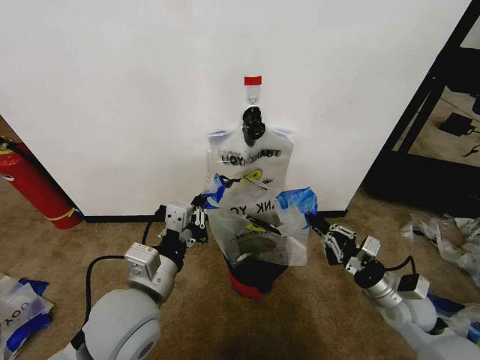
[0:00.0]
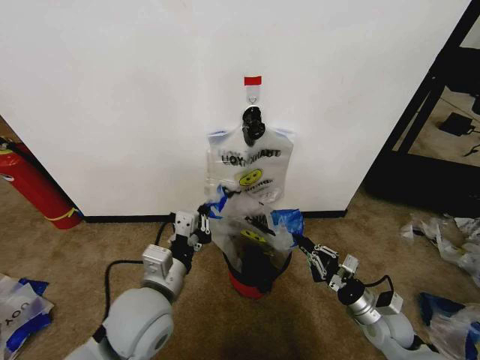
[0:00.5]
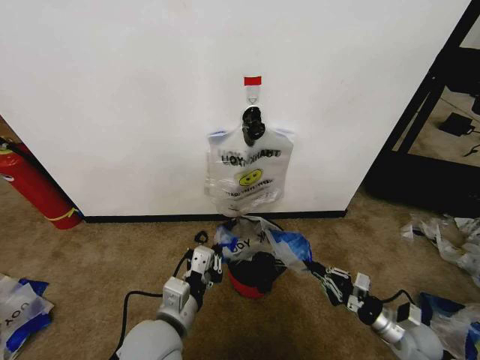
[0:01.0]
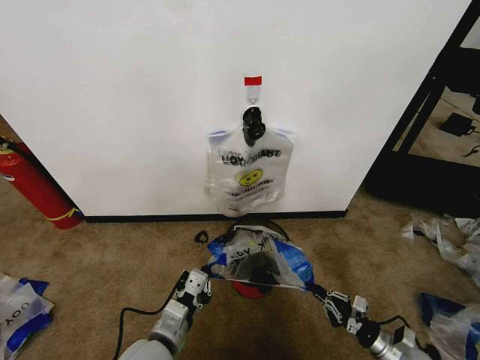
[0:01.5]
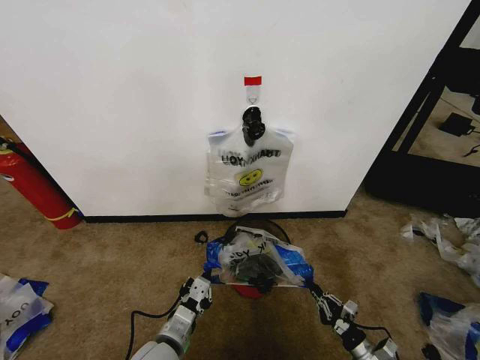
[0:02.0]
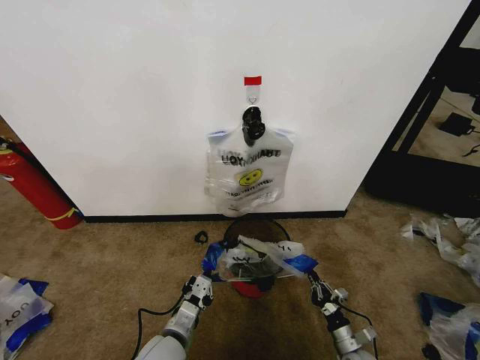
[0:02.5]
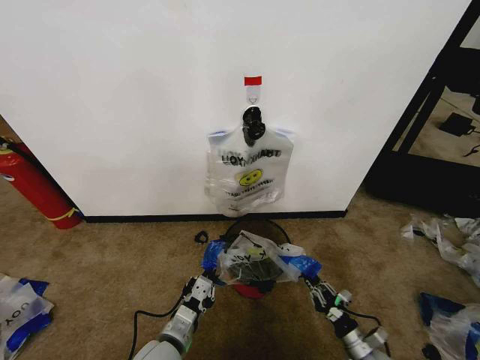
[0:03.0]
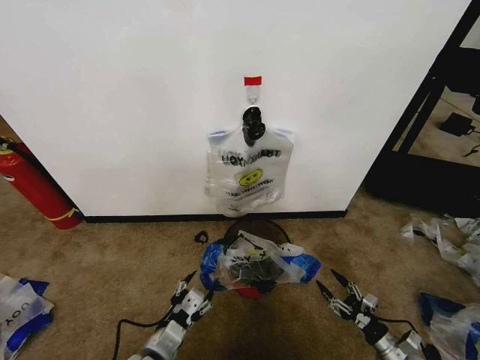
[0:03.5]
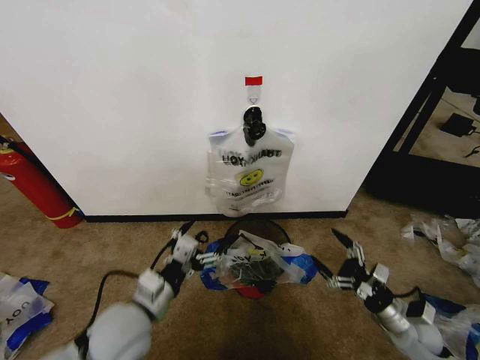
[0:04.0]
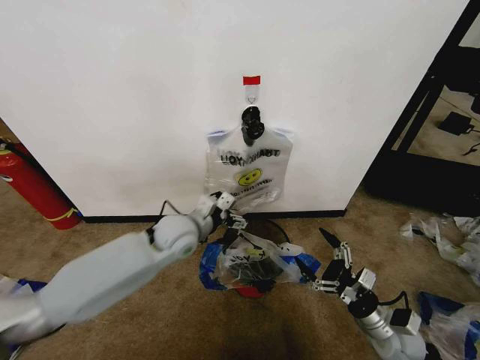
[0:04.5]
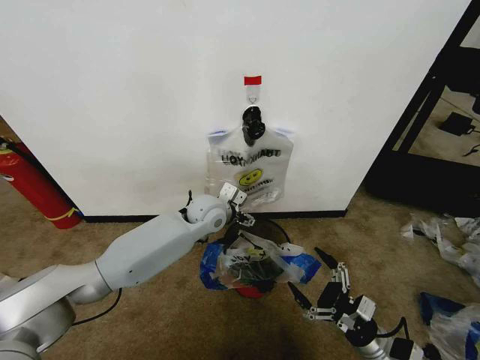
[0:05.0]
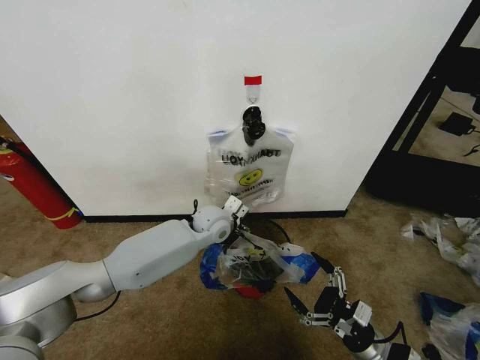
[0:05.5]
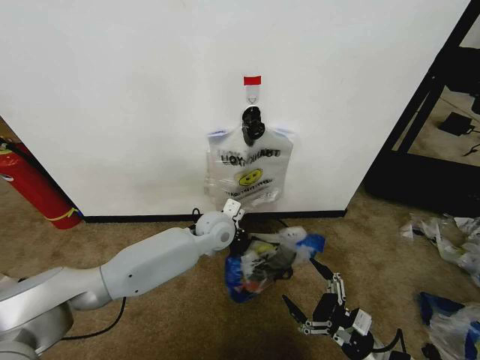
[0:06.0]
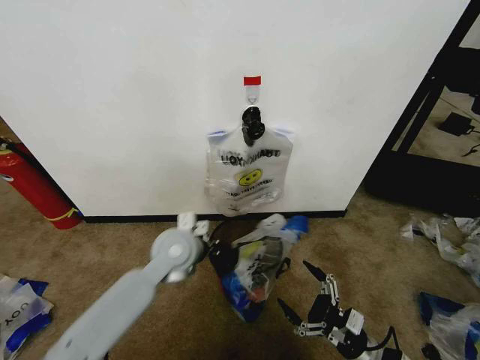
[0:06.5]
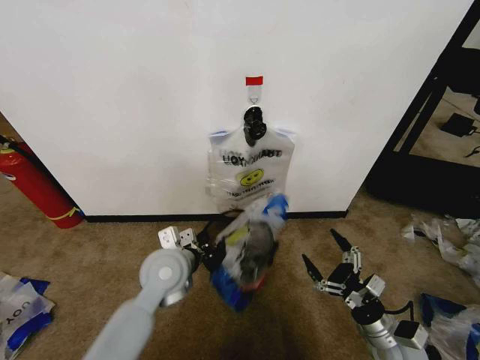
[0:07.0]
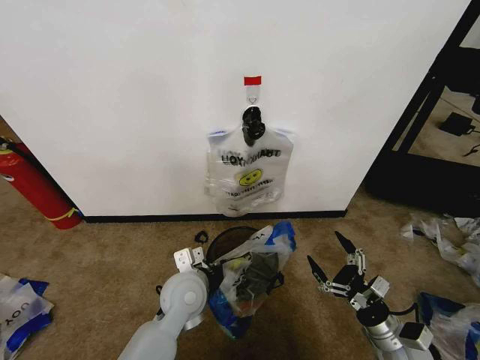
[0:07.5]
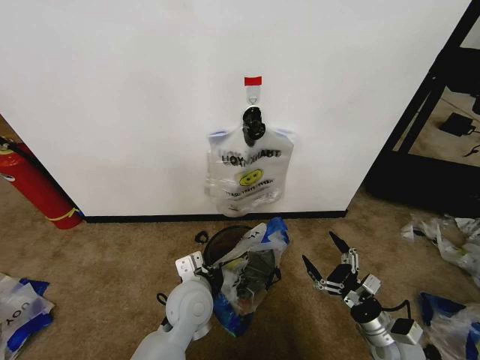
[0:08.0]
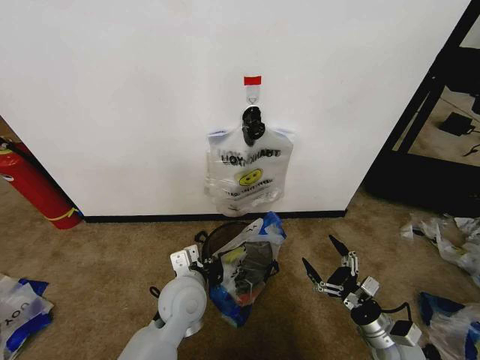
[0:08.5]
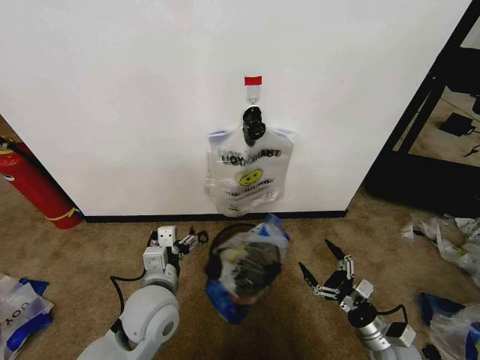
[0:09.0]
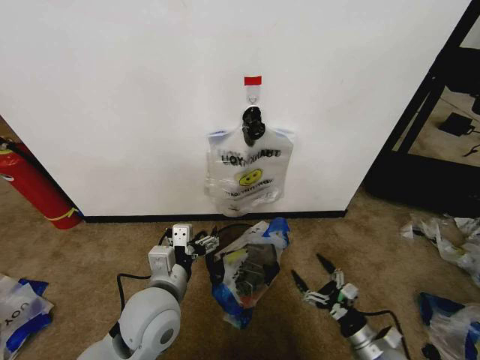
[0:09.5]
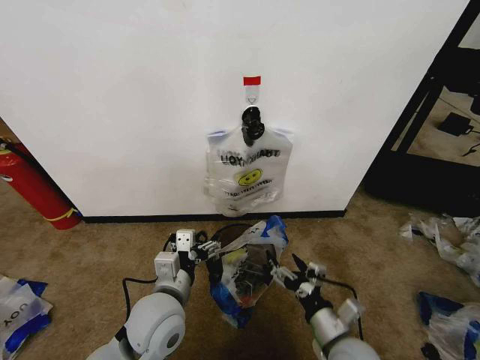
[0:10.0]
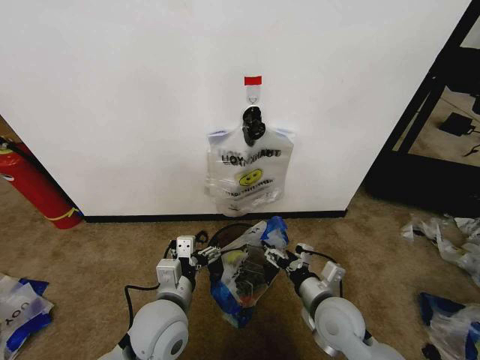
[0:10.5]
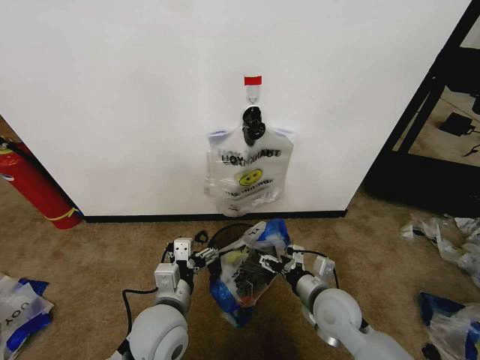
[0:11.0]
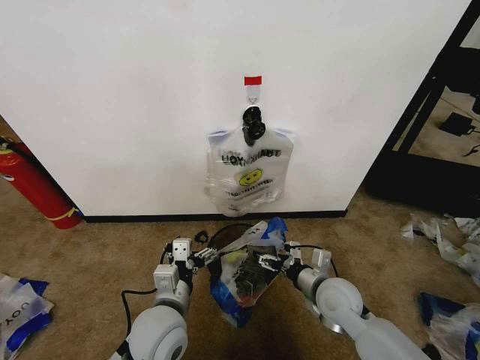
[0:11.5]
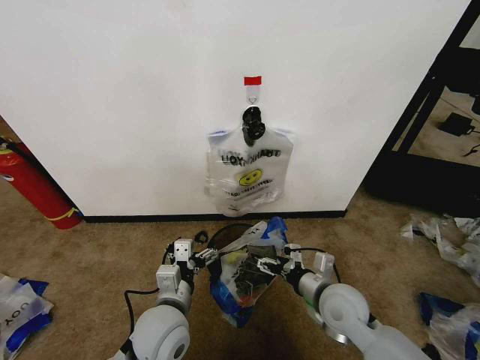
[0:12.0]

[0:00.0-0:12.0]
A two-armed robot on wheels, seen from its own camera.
Task of the whole recording: Pick up the garbage bag from the wall and place it over the trash bin.
0:00.0 to 0:02.0: The right gripper heads downward and backward, covering some 25 cm; the left gripper travels downward by roughly 20 cm.
0:02.0 to 0:04.0: The left gripper travels upward by about 10 cm, and opens its fingers. Meanwhile the right gripper travels upward and forward by about 15 cm, and opens.
0:04.0 to 0:06.0: The right gripper is displaced to the left and backward by approximately 10 cm. The left gripper goes some 25 cm forward and to the right, and closes its fingers.
0:06.0 to 0:08.0: The left gripper travels backward by approximately 15 cm; the right gripper moves roughly 5 cm.
0:08.0 to 0:10.0: The left gripper shifts approximately 5 cm upward, and opens; the right gripper goes approximately 15 cm to the left and upward.
0:10.0 to 0:12.0: The right gripper travels forward by about 10 cm.

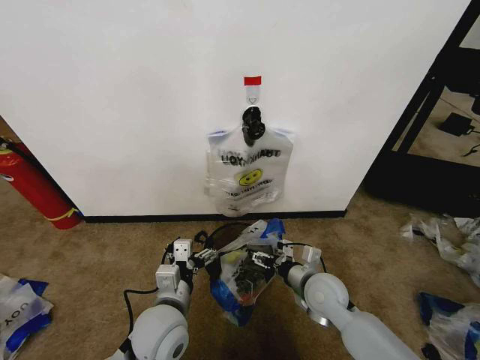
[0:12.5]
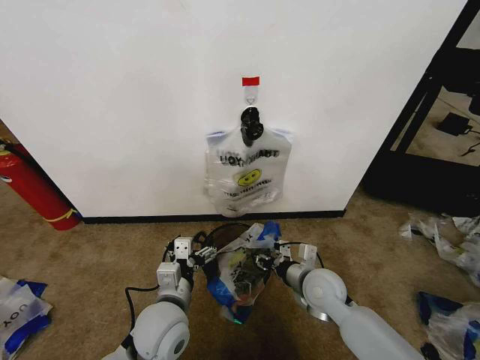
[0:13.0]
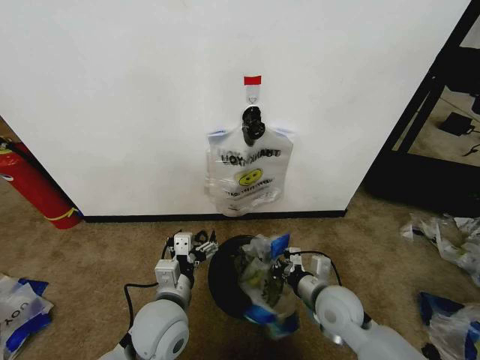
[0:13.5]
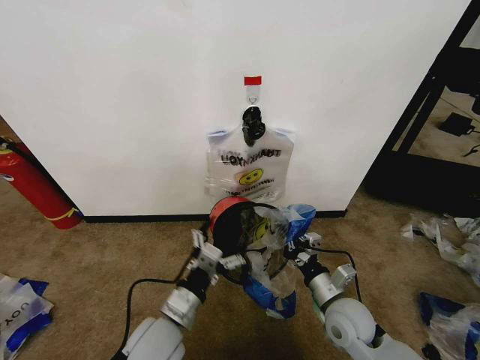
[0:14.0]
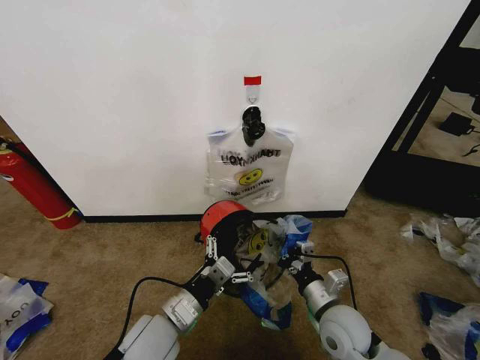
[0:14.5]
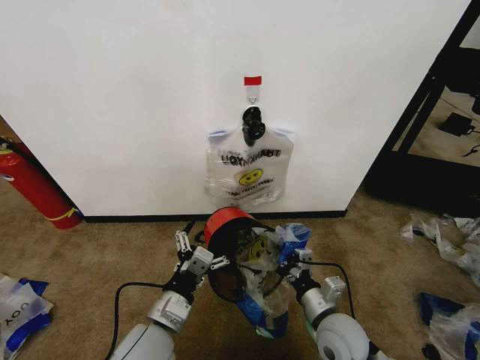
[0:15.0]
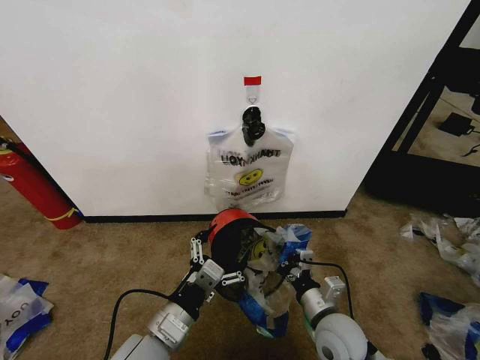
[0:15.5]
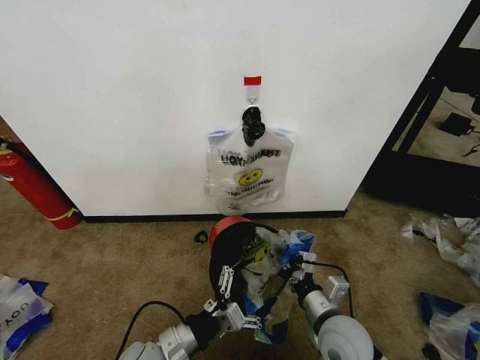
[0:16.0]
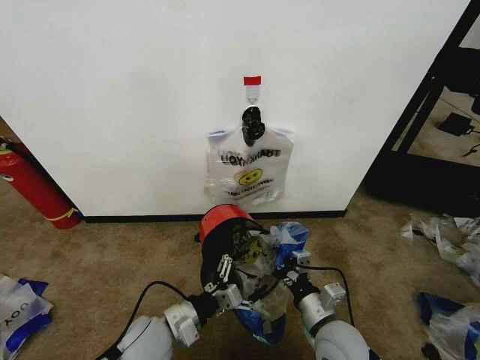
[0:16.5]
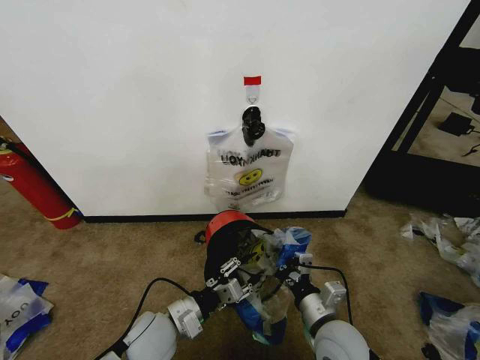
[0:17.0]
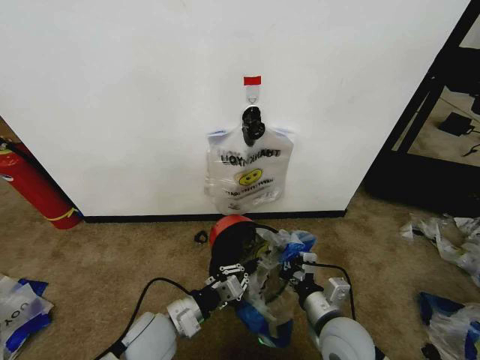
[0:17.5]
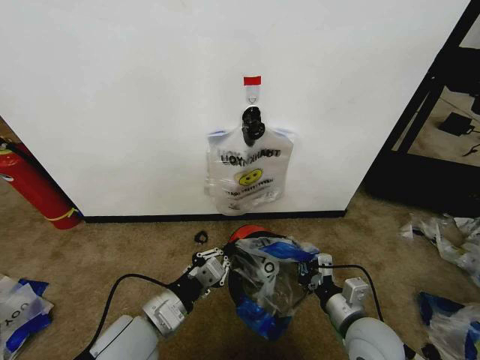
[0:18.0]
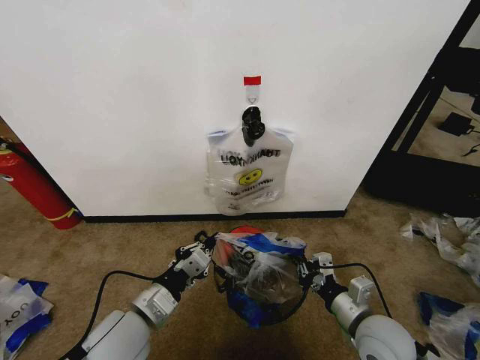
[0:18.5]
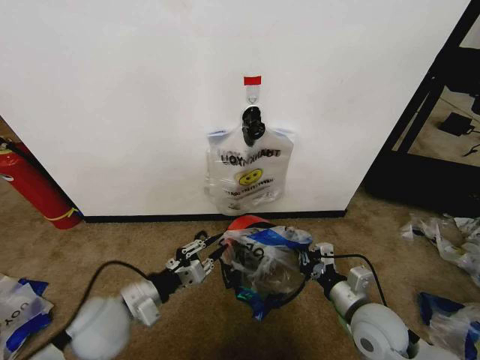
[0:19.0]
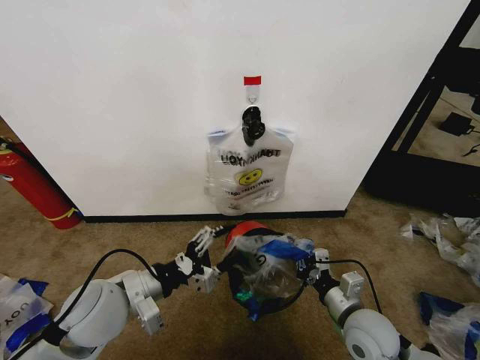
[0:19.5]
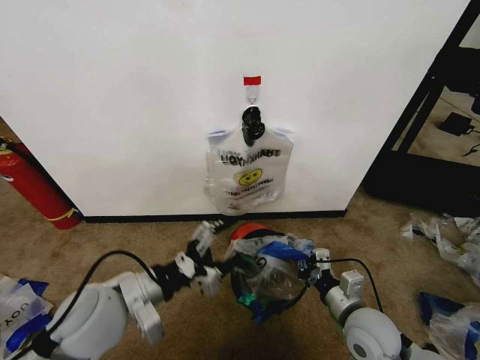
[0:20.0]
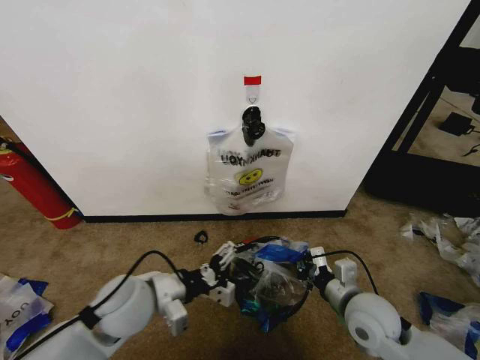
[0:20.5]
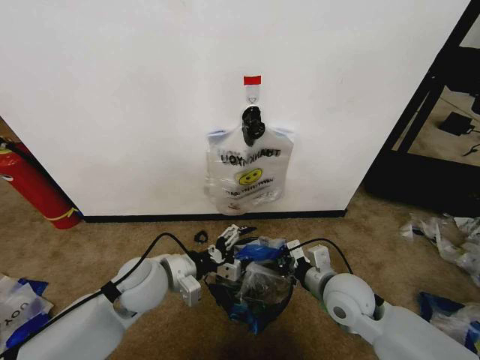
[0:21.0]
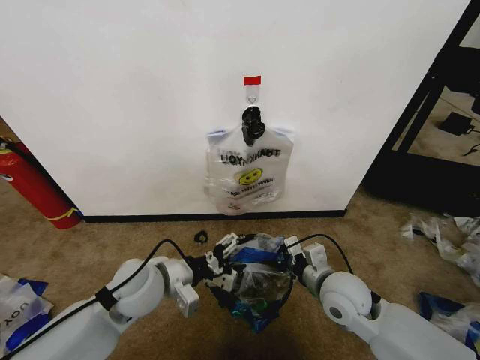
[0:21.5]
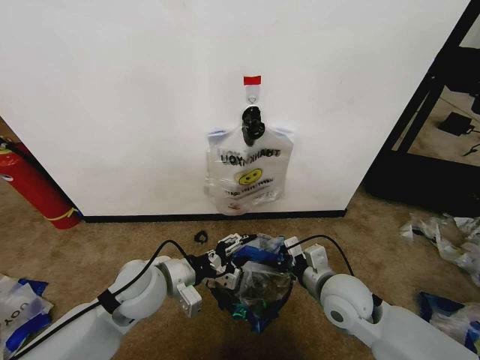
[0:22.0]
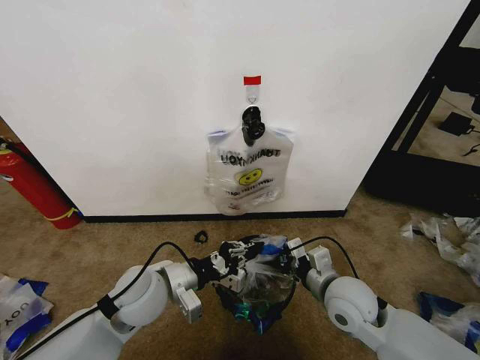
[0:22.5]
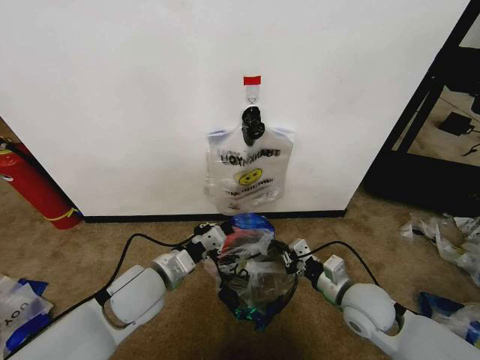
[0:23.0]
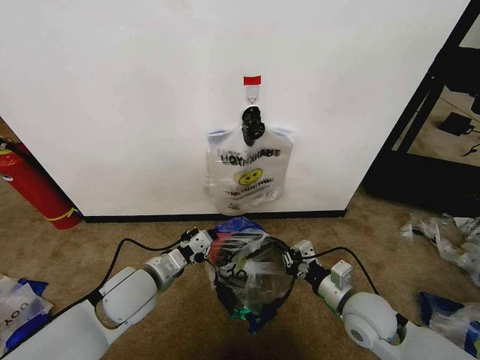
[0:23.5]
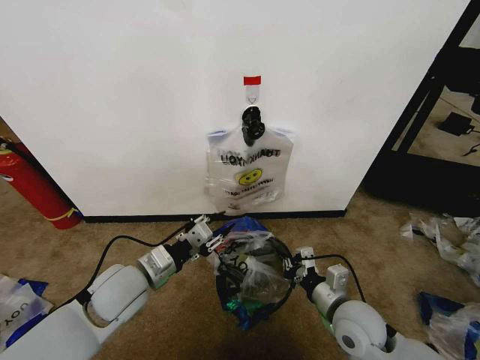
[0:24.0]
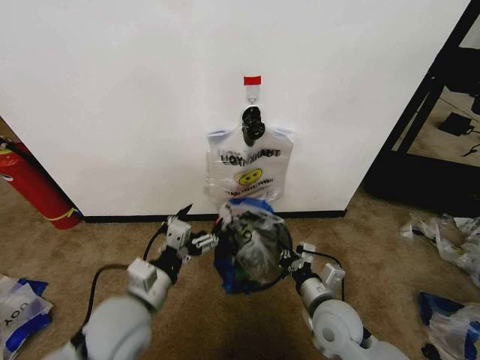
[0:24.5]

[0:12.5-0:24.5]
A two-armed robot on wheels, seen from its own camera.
Task of the whole recording: Pick up the garbage bag from the wall and place it over the trash bin.
0:12.5 to 0:14.5: The right gripper shifts approximately 5 cm backward, and closes up.
0:16.5 to 0:18.5: The right gripper is displaced to the right by roughly 5 cm; the left gripper shifts approximately 5 cm upward, and closes.
0:18.5 to 0:20.5: The left gripper goes some 5 cm forward, and opens its fingers.
0:20.5 to 0:22.5: The right gripper ends up approximately 5 cm from where it was; the left gripper closes.
0:22.5 to 0:24.5: The left gripper opens up. Meanwhile the right gripper ends up some 5 cm from where it was.

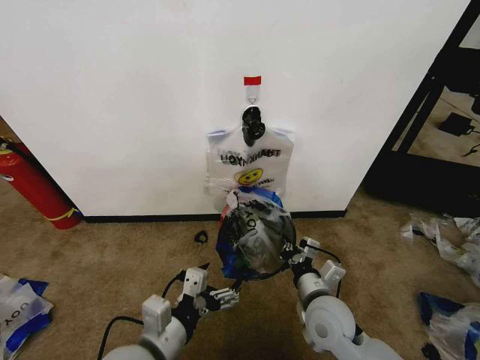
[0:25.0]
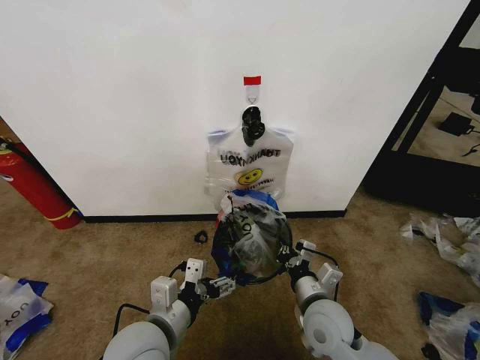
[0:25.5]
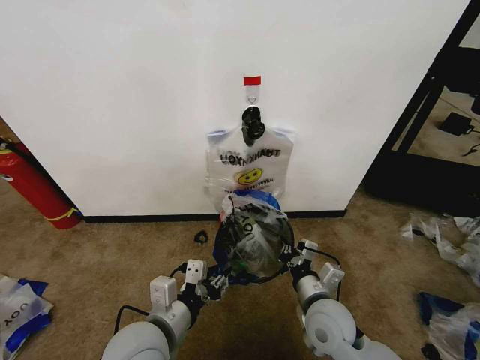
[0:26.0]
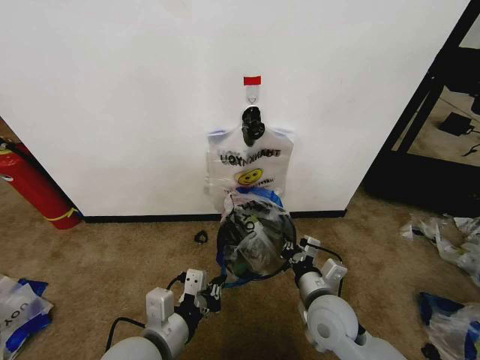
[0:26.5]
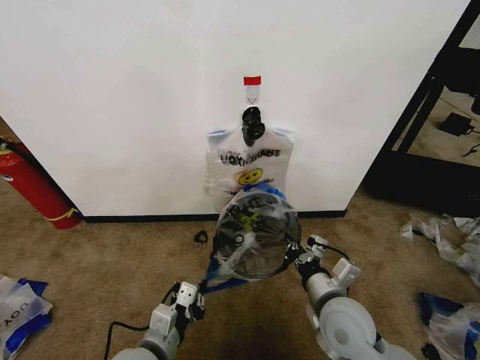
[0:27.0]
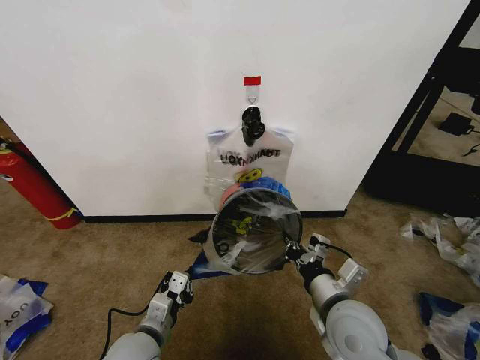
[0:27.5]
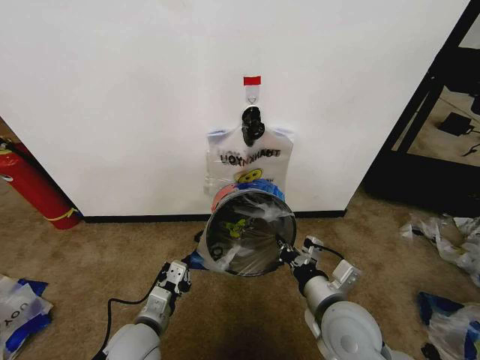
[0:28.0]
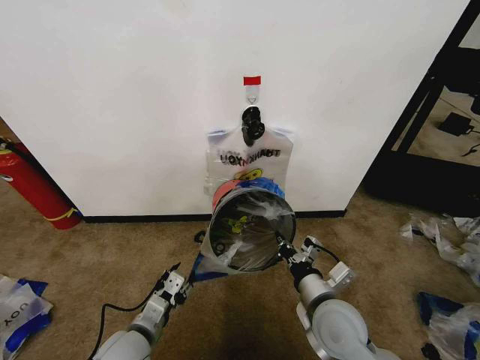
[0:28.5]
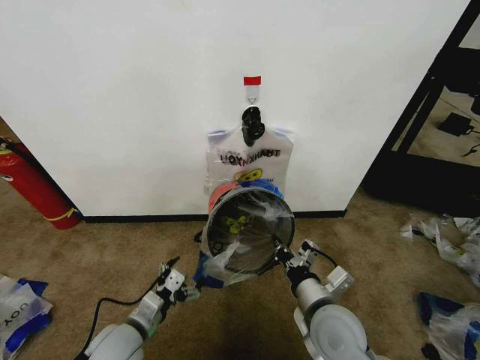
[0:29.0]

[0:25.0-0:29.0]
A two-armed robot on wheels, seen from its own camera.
Task of the whole recording: Pick up the garbage bag from the wall and place it over the trash bin.
0:25.0 to 0:27.0: The left gripper is displaced downward by about 5 cm, and closes its fingers.
0:27.0 to 0:29.0: The left gripper shifts approximately 10 cm to the left and forward, and opens.
